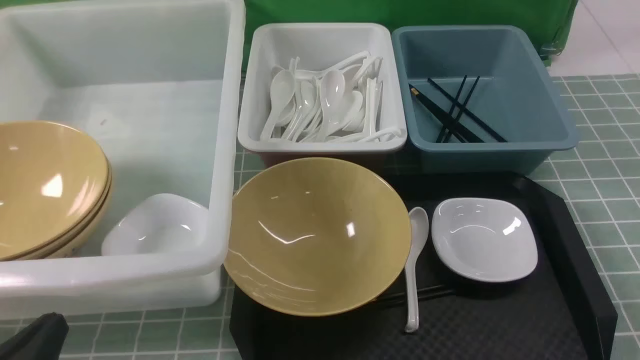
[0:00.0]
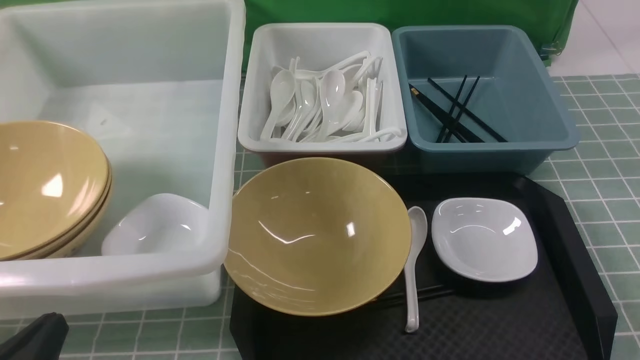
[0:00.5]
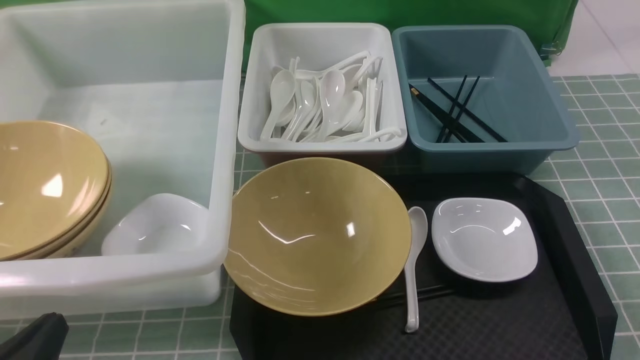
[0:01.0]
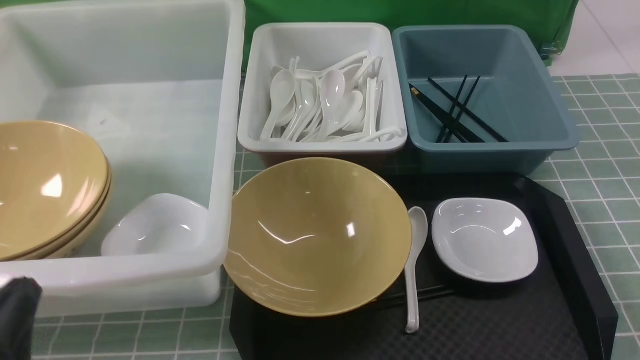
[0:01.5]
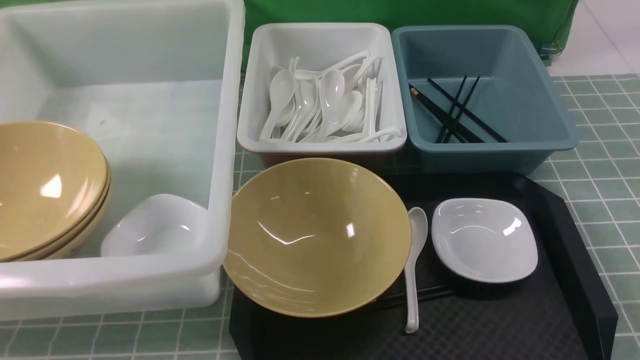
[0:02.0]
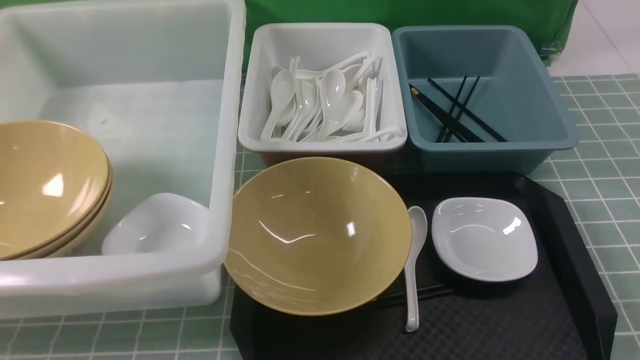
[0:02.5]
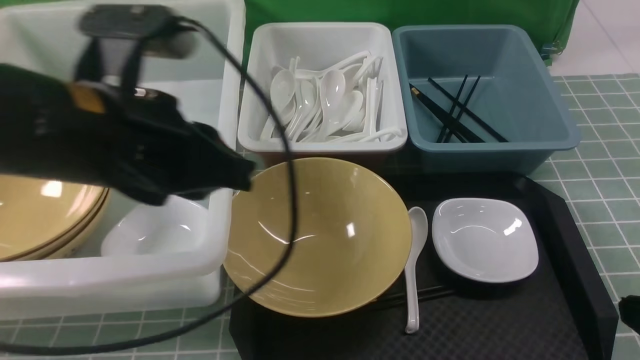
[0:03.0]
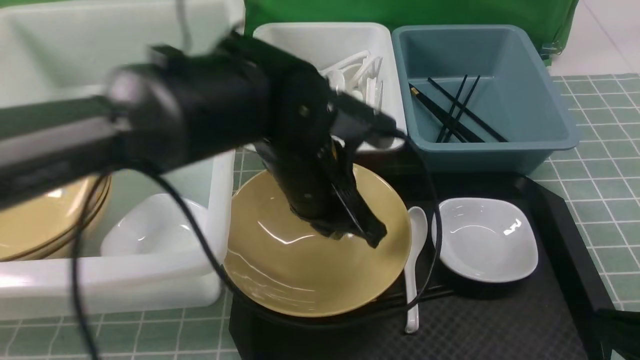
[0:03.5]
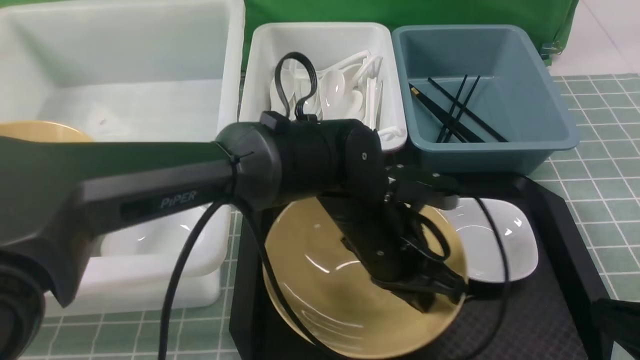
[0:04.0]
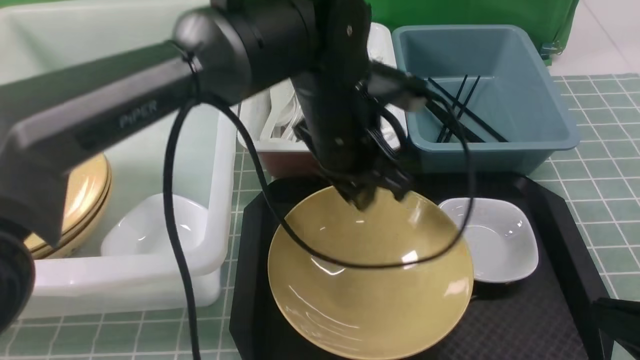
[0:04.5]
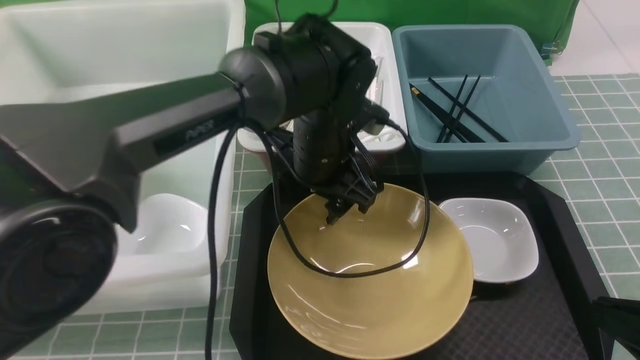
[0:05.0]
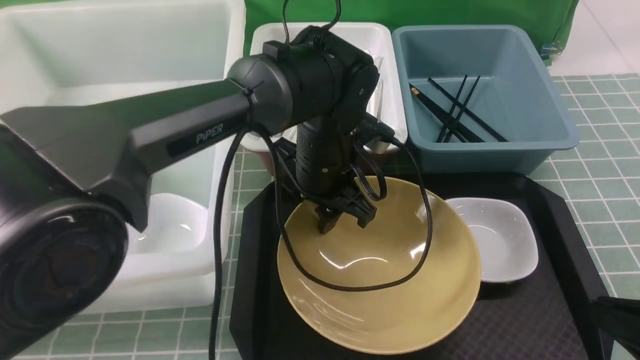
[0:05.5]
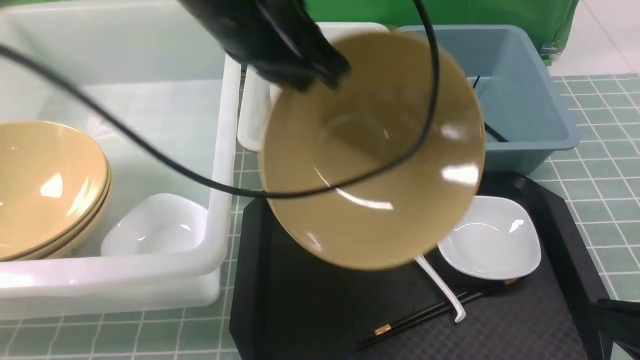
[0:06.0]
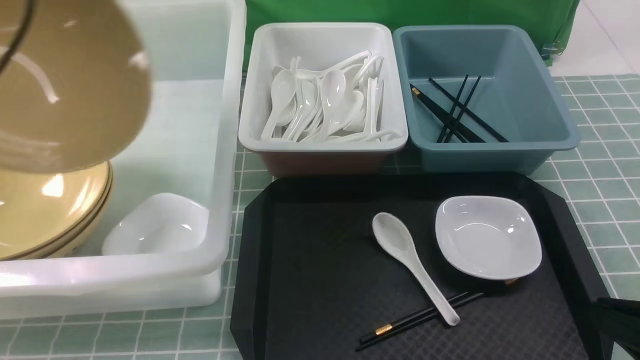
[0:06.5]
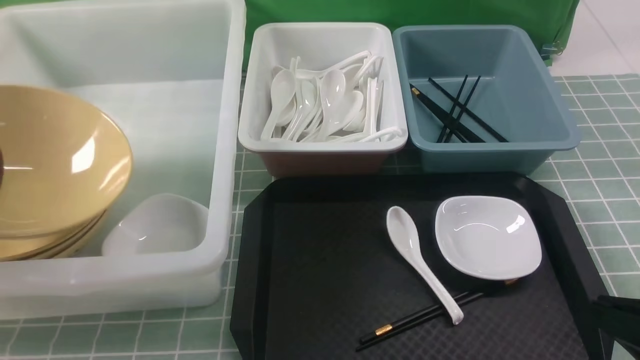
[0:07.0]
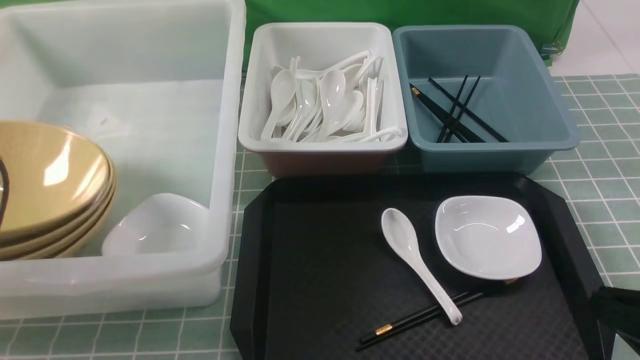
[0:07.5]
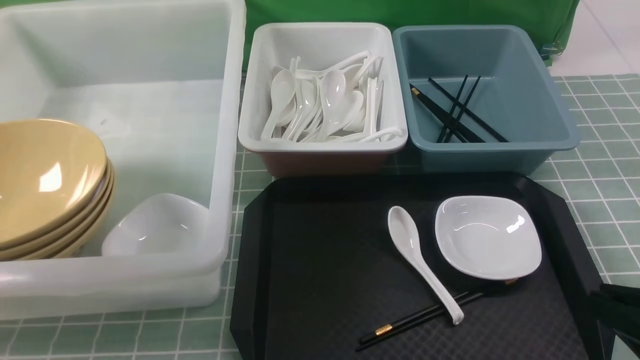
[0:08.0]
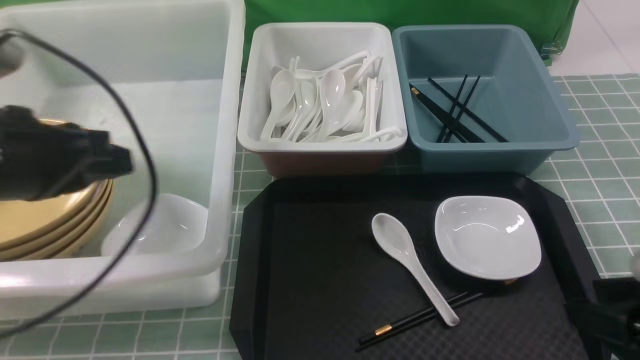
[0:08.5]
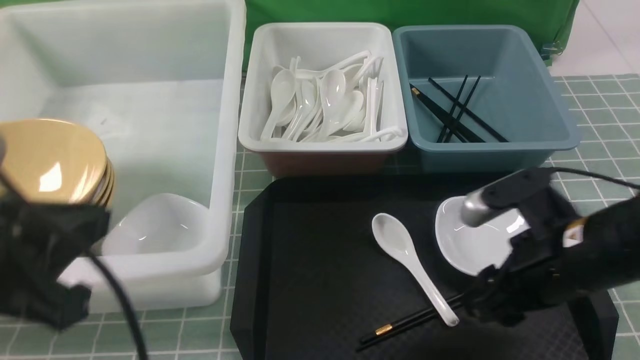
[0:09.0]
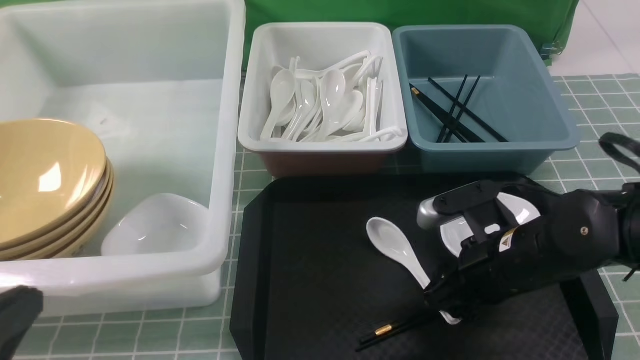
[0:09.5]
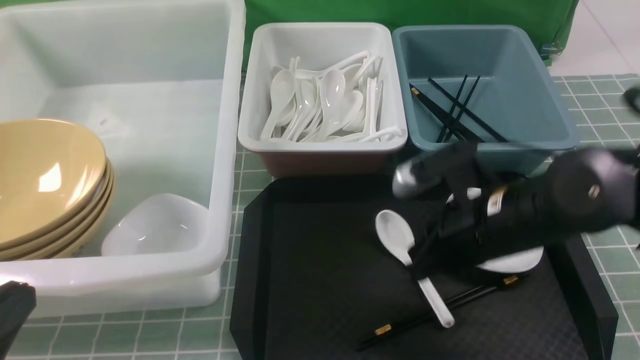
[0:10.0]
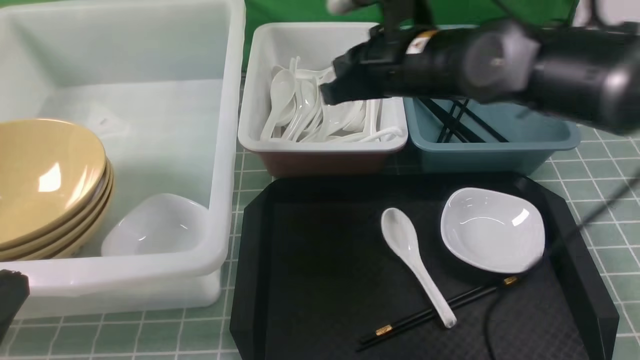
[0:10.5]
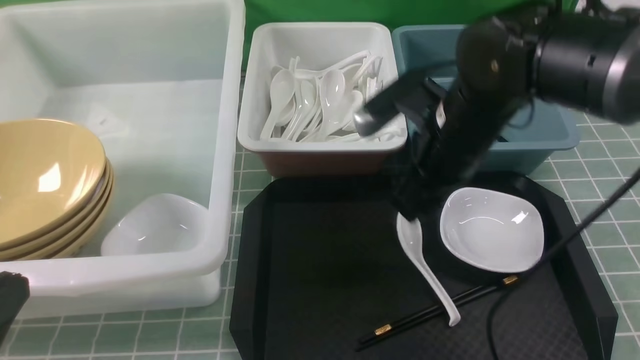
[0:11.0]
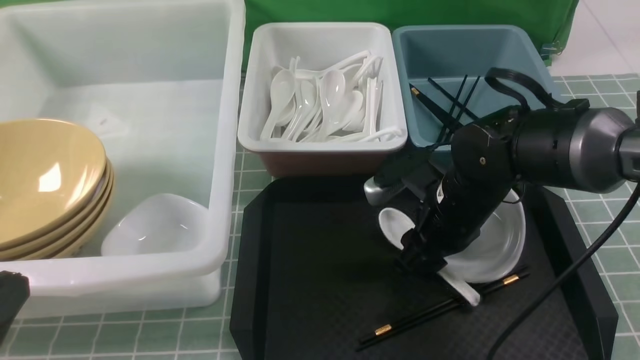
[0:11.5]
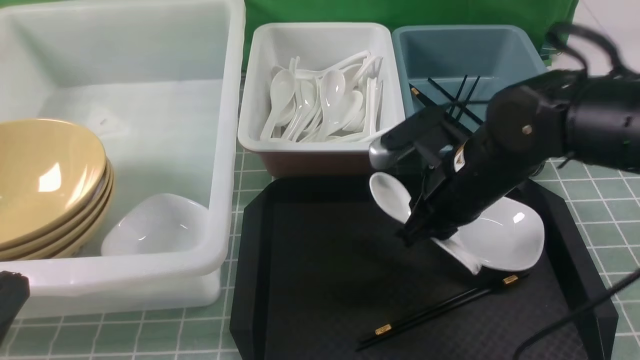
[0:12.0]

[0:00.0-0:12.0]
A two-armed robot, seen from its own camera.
Task of the whole recording: on blue table put chopsticks spoon bowls plates into blue grey white boxes.
Step, 0:00.0 to 0:05.5: use the left arm to grab the yellow noodle bowl on the left.
Step, 0:06.0 to 0:07.5: use the left arm to put the noodle bowl into the large storage box on the left.
Step, 0:08.0 to 0:11.5: use the right arm to grab the soup spoon in the middle.
0:00.0 to 0:02.0: The left gripper travels upward by roughly 10 cm.
0:02.0 to 0:04.0: The left gripper moves to the right and forward, about 40 cm. Meanwhile the right gripper moves approximately 5 cm.
0:04.0 to 0:06.0: The left gripper swings up and down, roughly 20 cm each way, with 2 reversals, and opens, then closes once more.
0:06.0 to 0:08.0: The left gripper shifts some 25 cm to the left, and opens up.
0:08.0 to 0:10.0: The left gripper travels backward and to the right by approximately 20 cm, and closes, while the right gripper goes some 20 cm forward and to the left, and opens, then closes again.
0:10.0 to 0:12.0: The right gripper goes up and down, approximately 15 cm each way, reversing 2 times, and opens, then closes again.

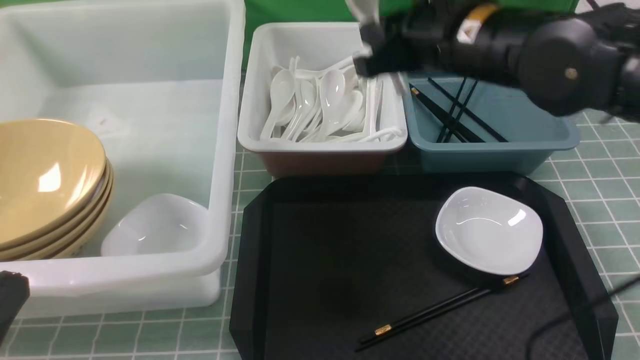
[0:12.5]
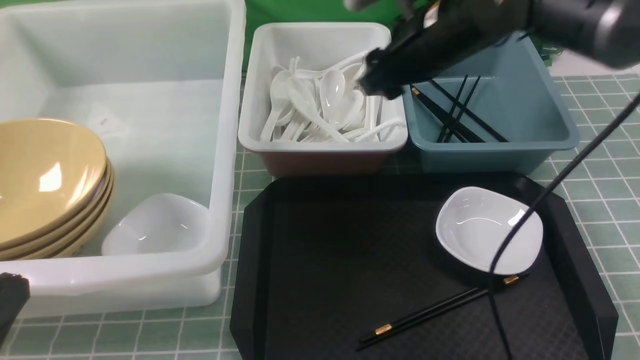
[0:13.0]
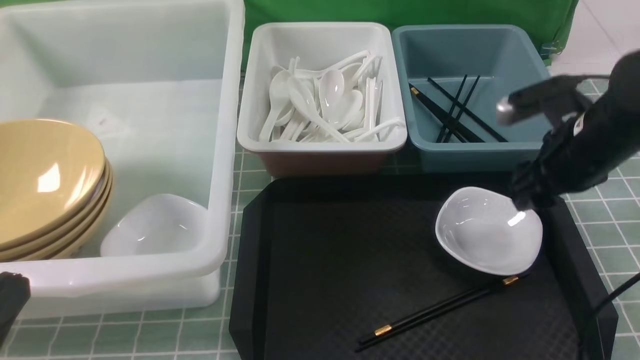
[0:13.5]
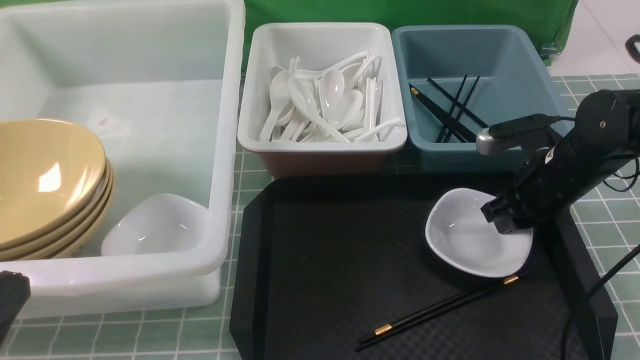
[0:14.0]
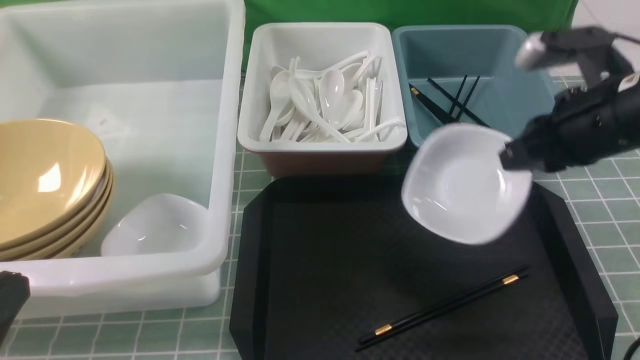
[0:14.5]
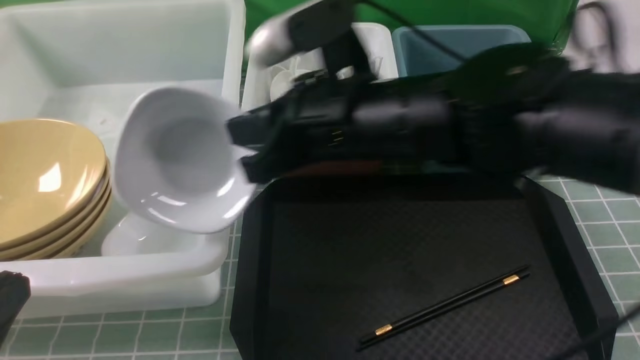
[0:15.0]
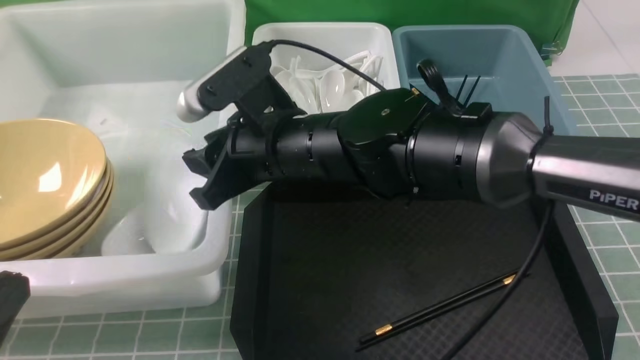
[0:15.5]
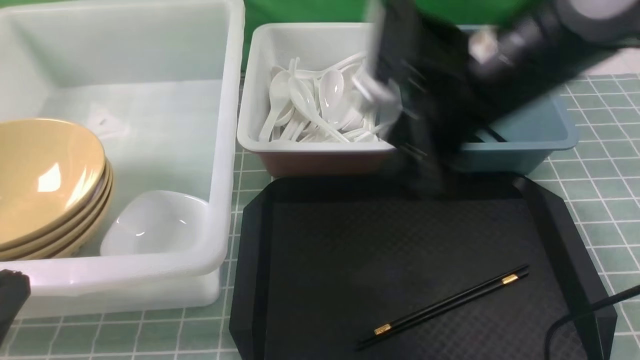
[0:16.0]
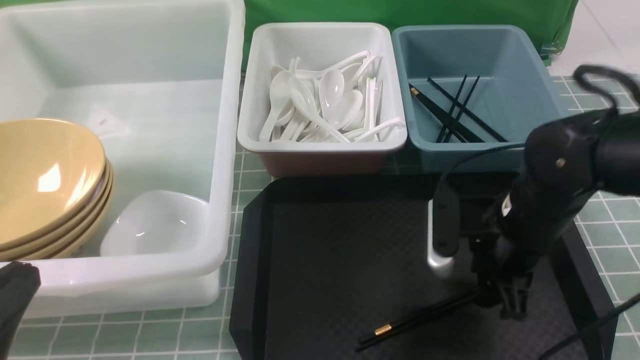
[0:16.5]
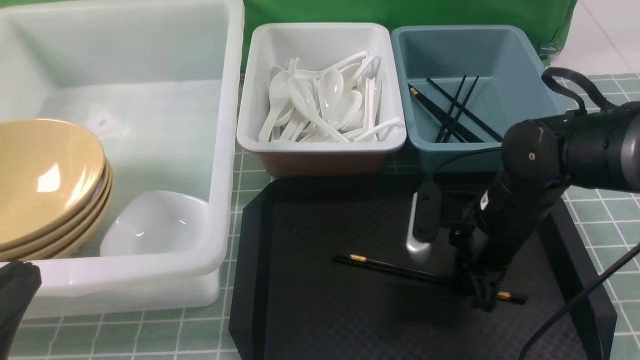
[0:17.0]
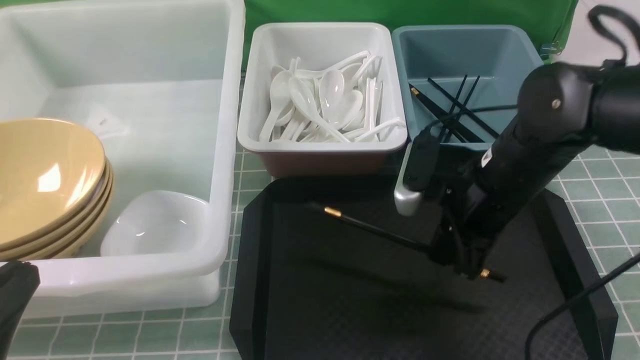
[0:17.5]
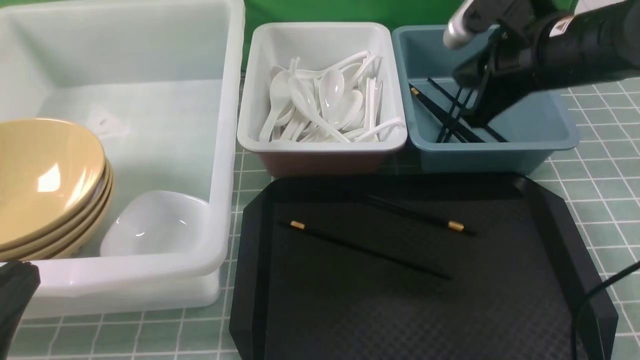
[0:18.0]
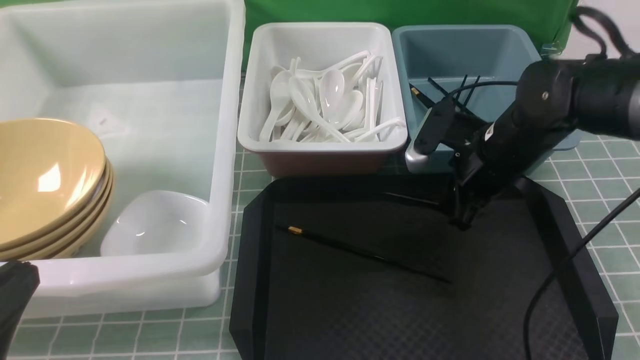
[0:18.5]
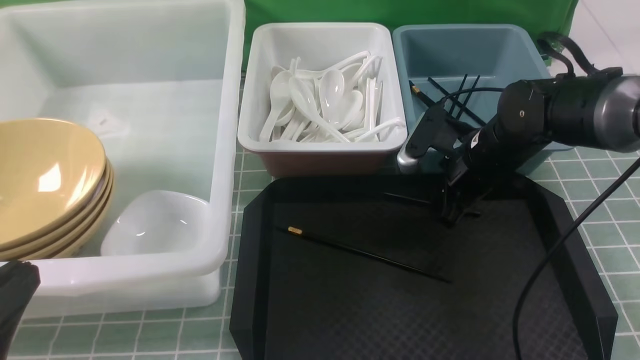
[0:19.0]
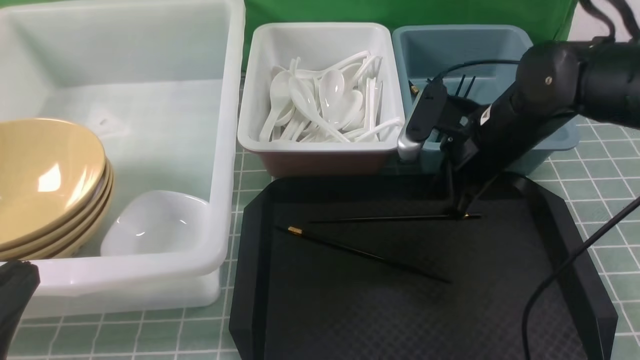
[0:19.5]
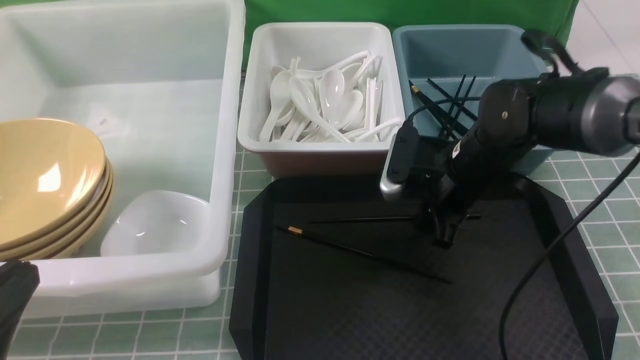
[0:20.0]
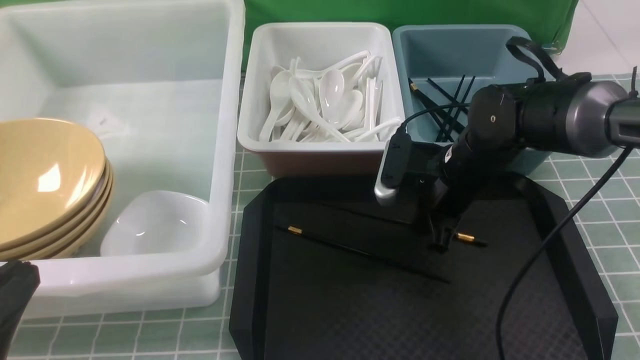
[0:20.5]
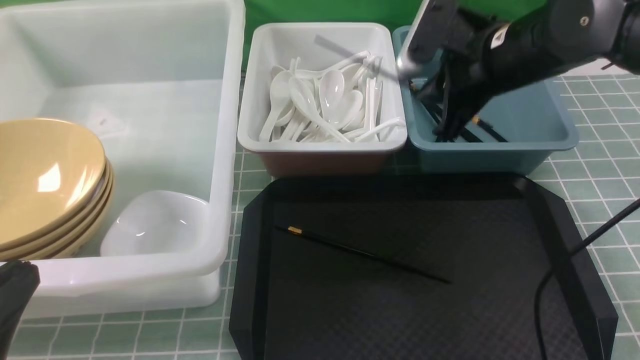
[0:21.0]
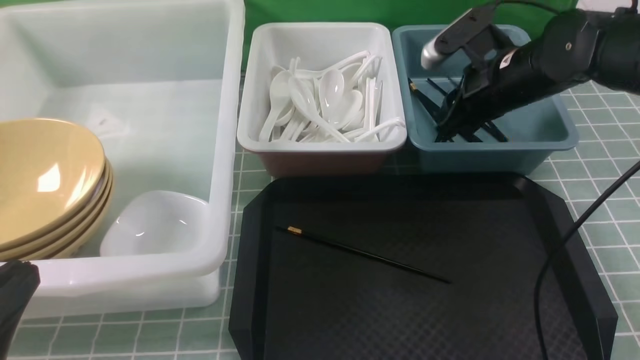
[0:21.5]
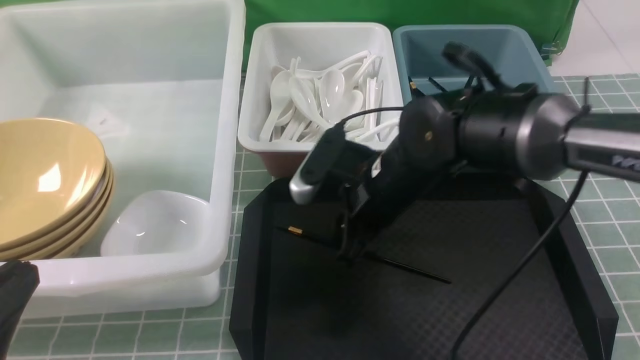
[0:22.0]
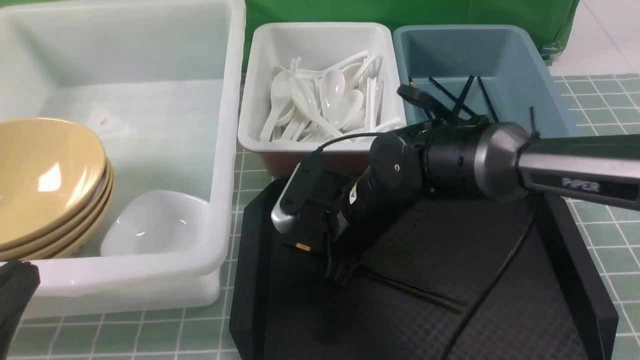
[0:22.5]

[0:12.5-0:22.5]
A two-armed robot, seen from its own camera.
Task of the whole recording: on blue table put chopsticks spoon bowls plates into blue grey white boxes.
Step, 0:13.5 to 0:14.0: use the right arm to grab the plate.
Step, 0:14.5 to 0:15.5: use the right arm to put the plate into the large storage box on the left.
Step, 0:16.0 to 0:20.5: use the right arm to grab a chopstick.
Step, 0:21.0 to 0:21.5: use the right arm to put a chopstick into the small storage box on the right.
Step, 0:22.0 to 0:22.5: use the right arm to grab a chopstick.
0:12.5 to 0:14.5: The right gripper is displaced to the right and backward by approximately 10 cm, and opens and closes again.
0:14.5 to 0:16.5: The right gripper goes roughly 10 cm downward, goes to the left and returns, about 25 cm each way, and opens up.
0:16.5 to 0:18.5: The right gripper is displaced forward by approximately 10 cm, goes upward and returns, approximately 10 cm each way, and closes and opens again.
0:18.5 to 0:20.5: The right gripper closes.
0:20.5 to 0:22.5: The right gripper moves to the left, roughly 10 cm, and opens, then closes again.
